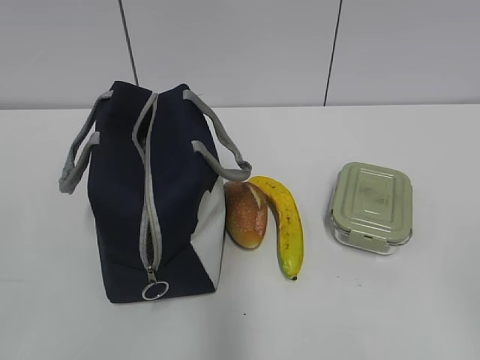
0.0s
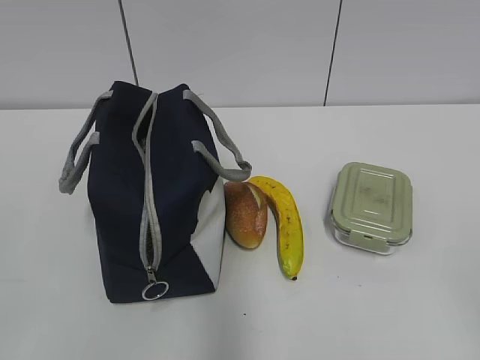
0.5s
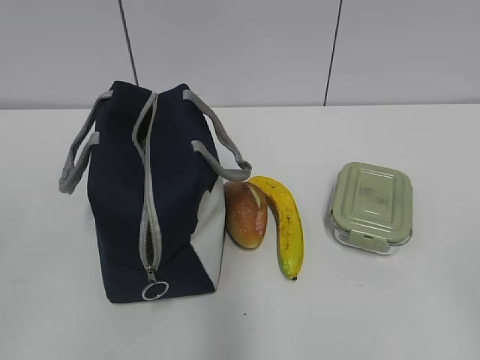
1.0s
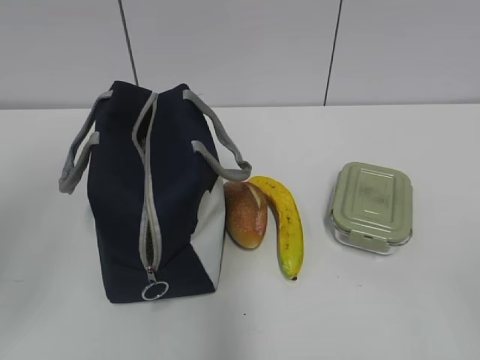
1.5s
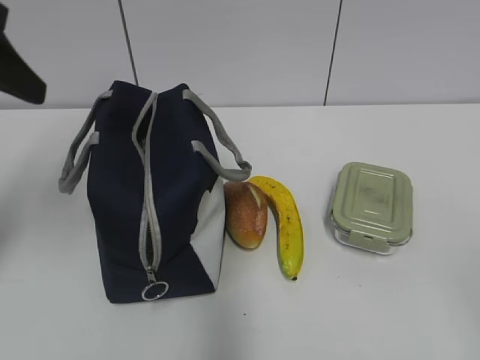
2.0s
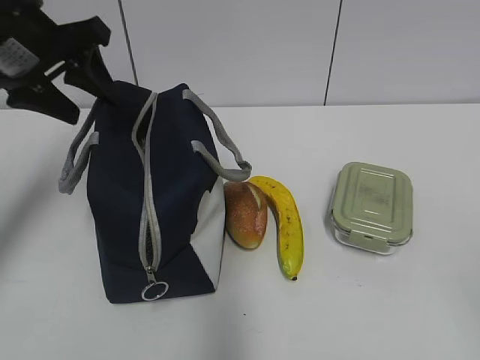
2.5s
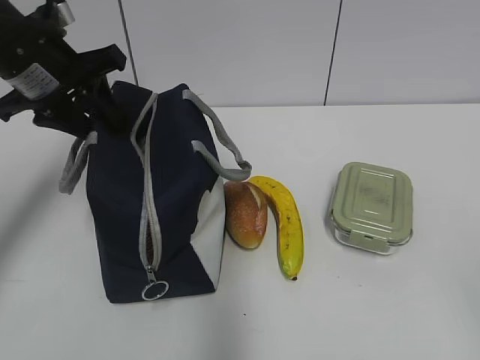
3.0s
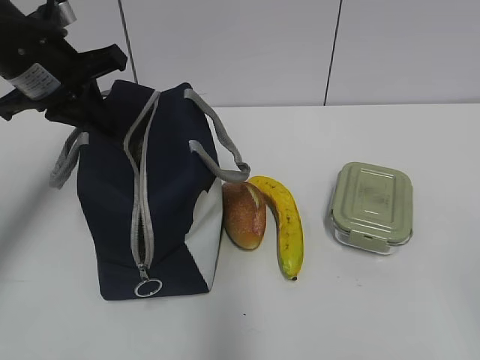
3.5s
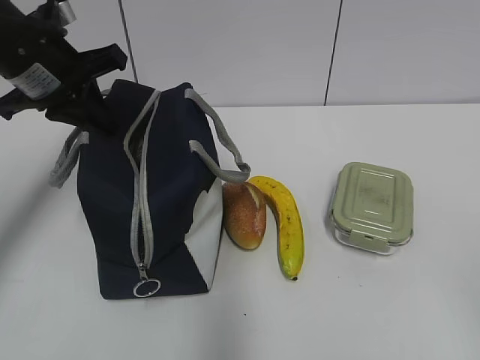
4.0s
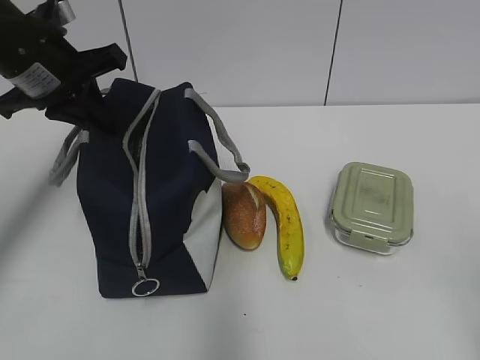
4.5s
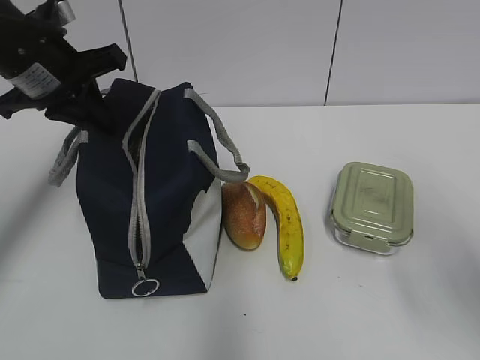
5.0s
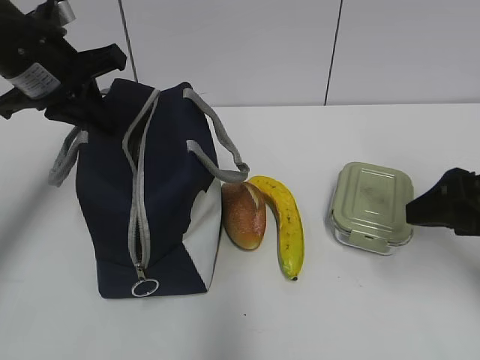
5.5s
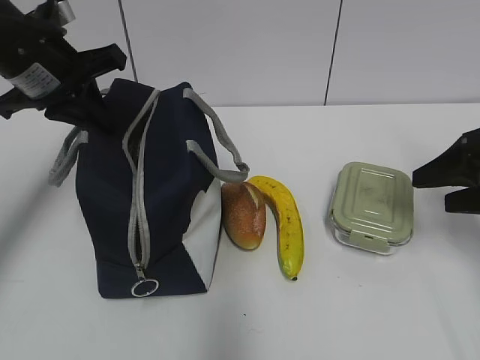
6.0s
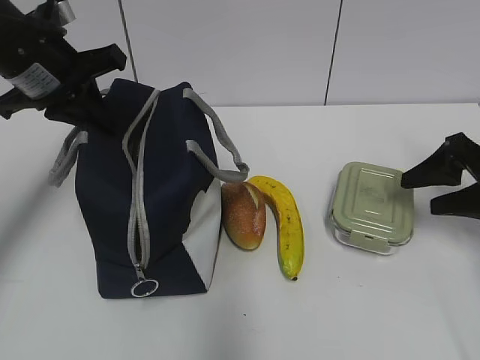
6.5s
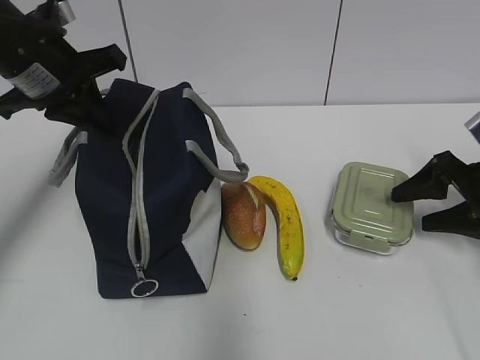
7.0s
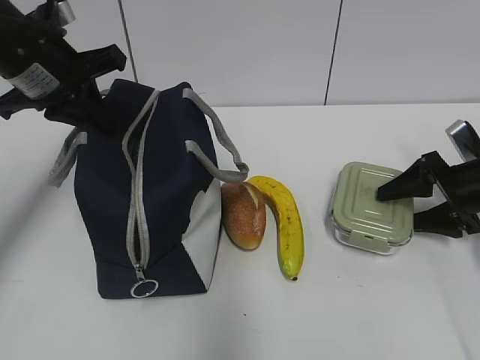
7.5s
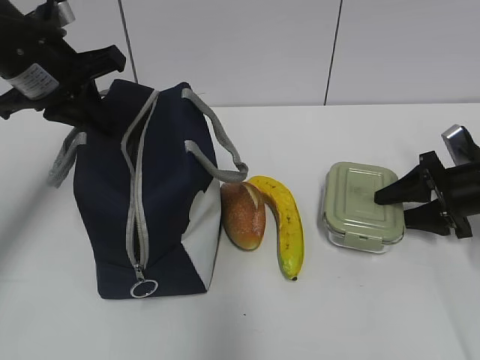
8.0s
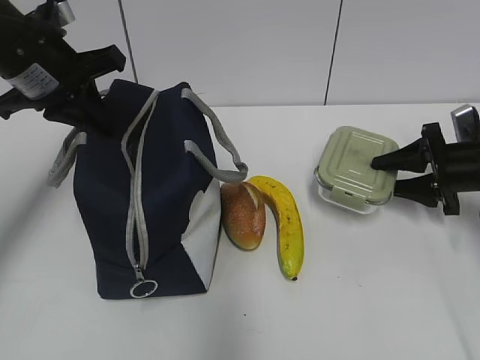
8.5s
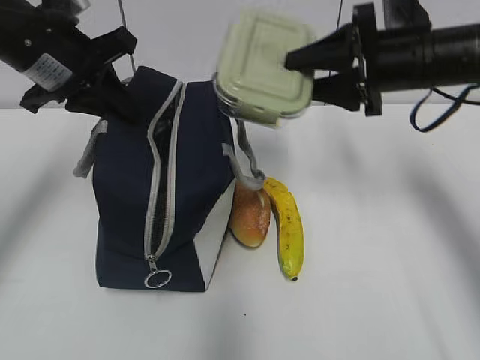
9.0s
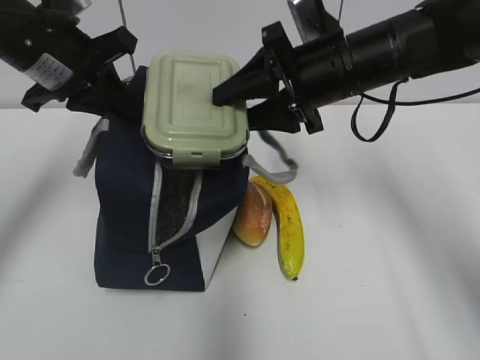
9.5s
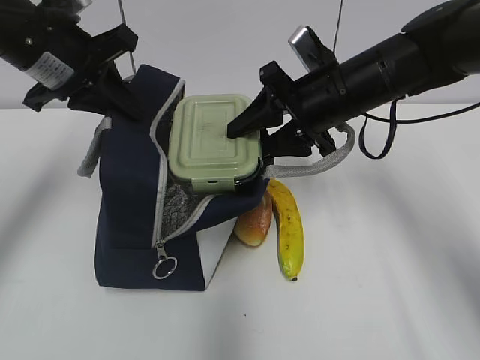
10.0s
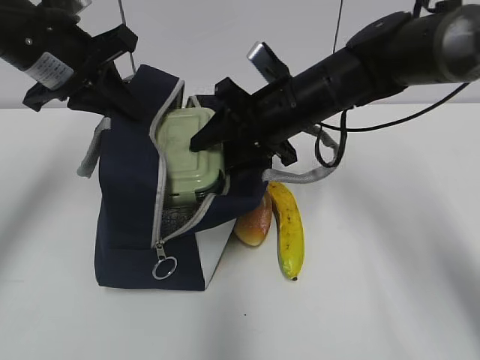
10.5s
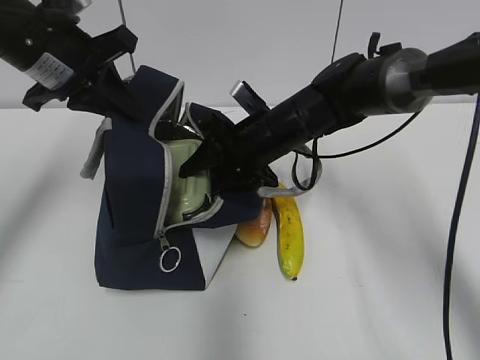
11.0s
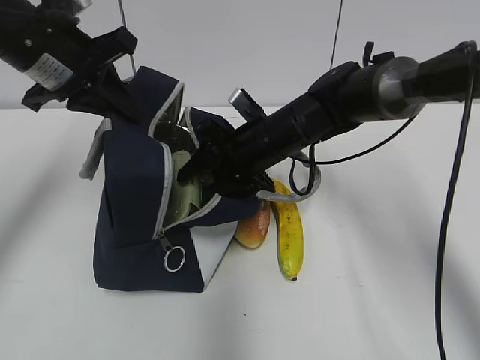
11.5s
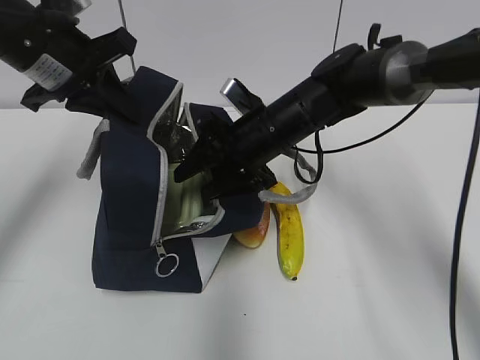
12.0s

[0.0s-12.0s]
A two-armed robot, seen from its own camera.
Step, 0.0s to 8.0s: Grab the lunch box with your right hand.
Step, 9.5s to 11.5s: Place it into the bag with your right hand.
2.0s to 4.0s: The left gripper shifts some 15 cm forward and downward, and closes up.
4.0s to 6.0s: The right gripper travels forward by about 30 cm.
6.0s to 8.0s: The right gripper travels downward and forward by some 10 cm.
8.0s to 10.0s: The right gripper moves to the left and upward, about 25 cm.
10.0s to 12.0s: The right gripper travels to the left and downward by roughly 10 cm.

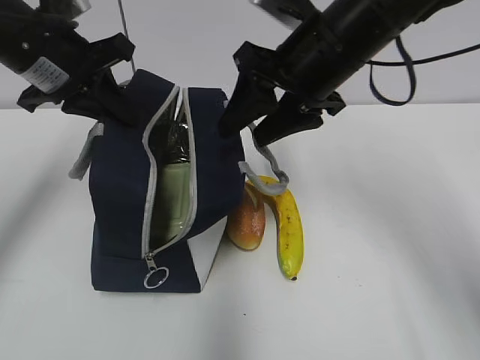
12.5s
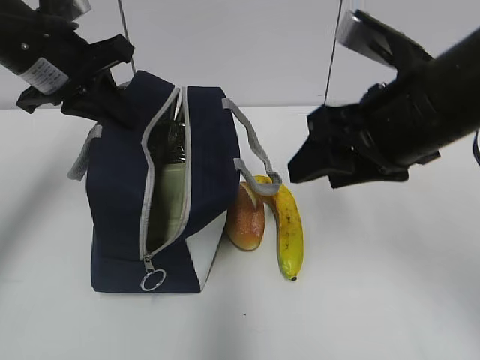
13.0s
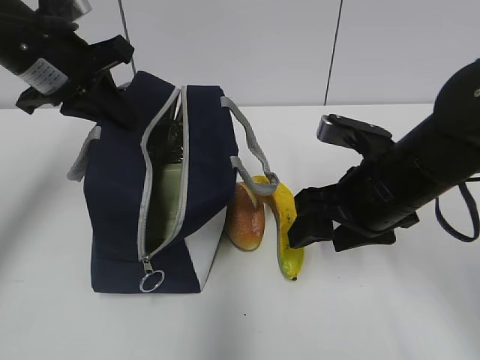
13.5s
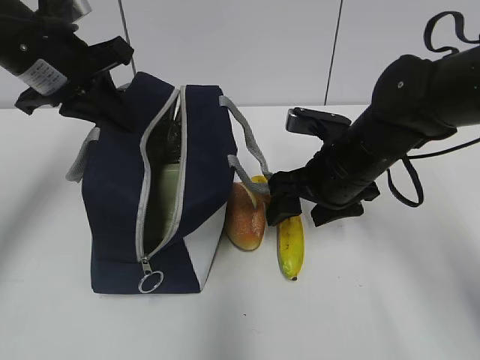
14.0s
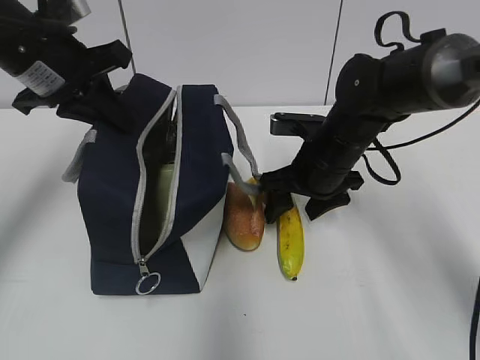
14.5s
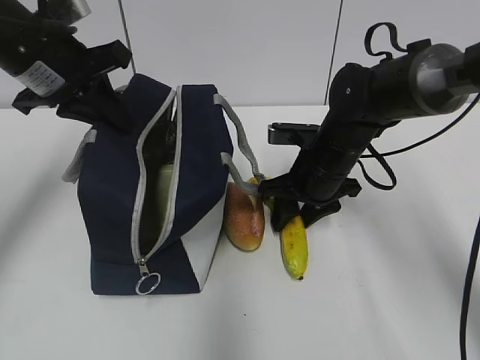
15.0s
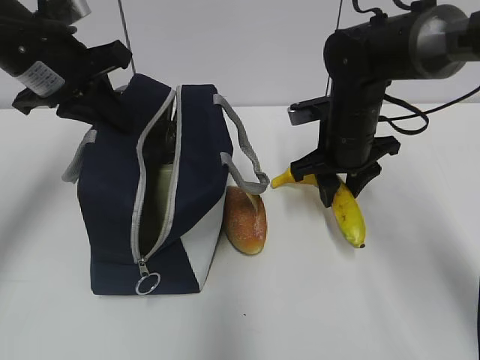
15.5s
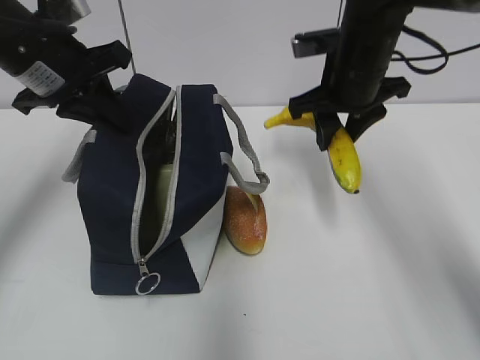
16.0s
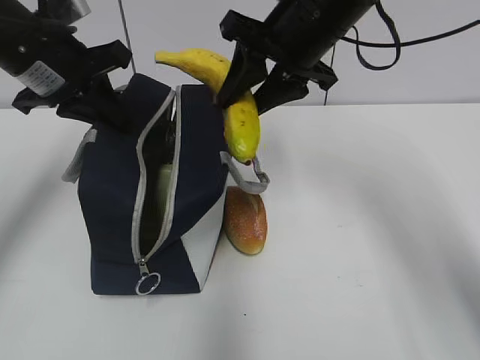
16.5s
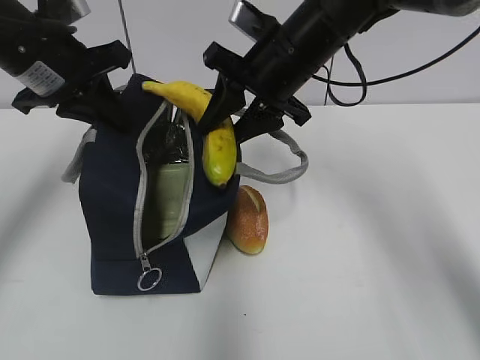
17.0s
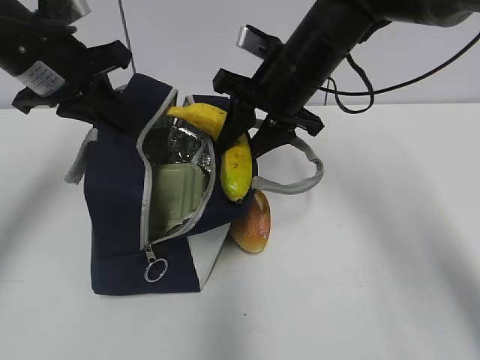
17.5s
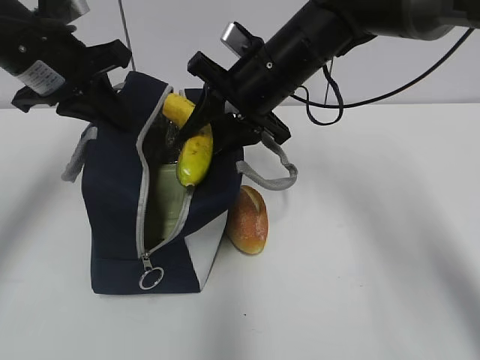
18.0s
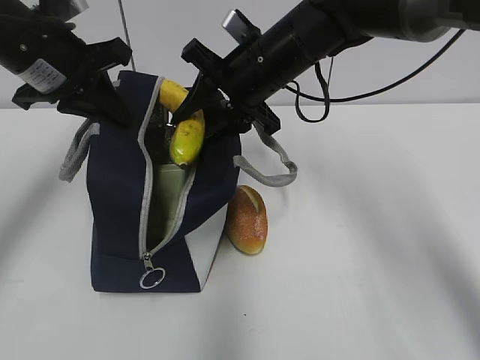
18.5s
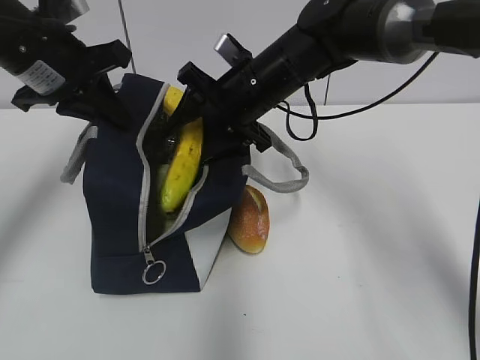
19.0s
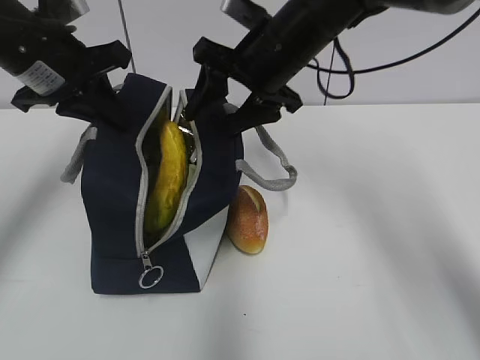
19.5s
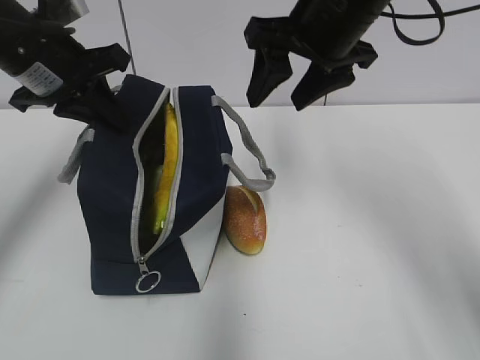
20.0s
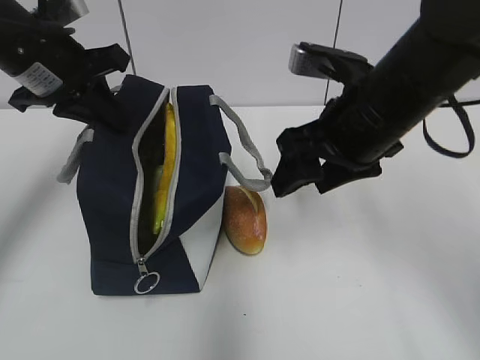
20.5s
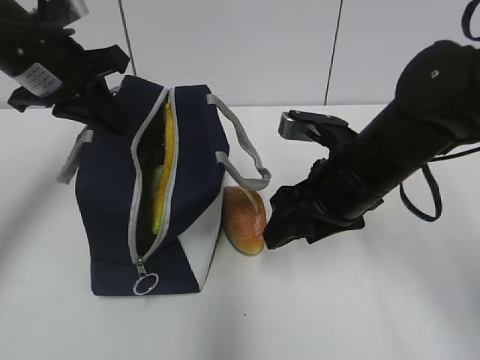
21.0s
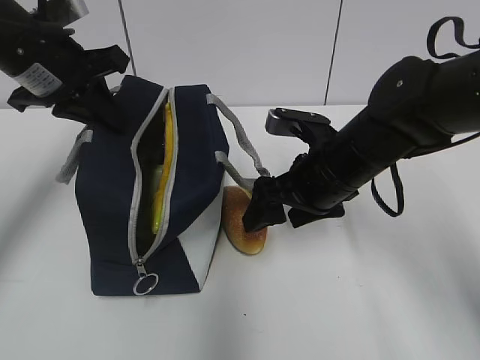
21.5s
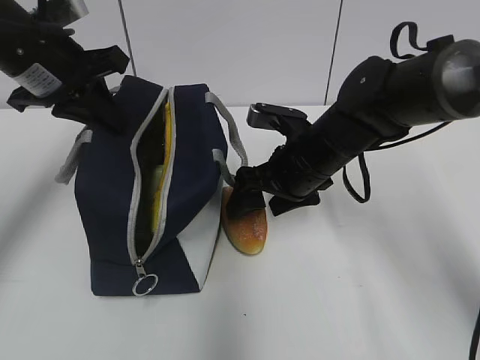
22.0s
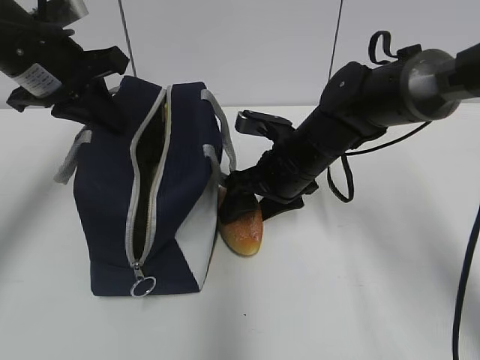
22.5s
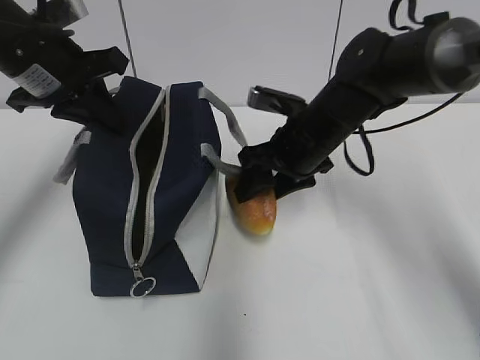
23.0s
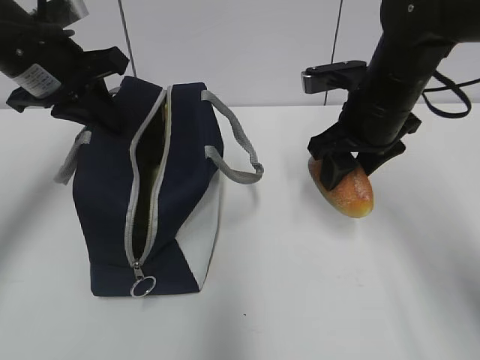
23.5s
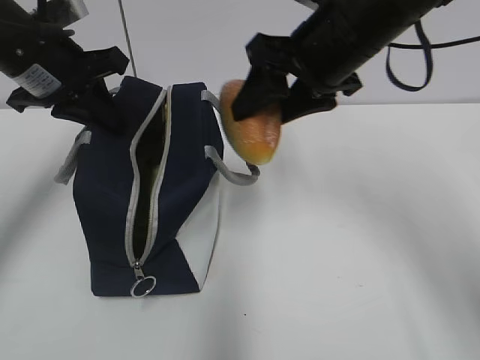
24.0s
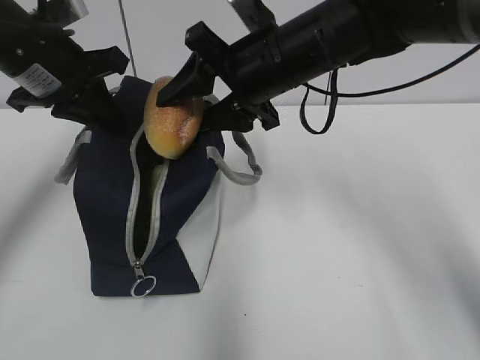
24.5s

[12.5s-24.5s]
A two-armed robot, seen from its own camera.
Step, 12.5s to 15.0s: Grab the banana with your right hand.
Step, 15.5s to 19.0s: Place it into the bag with your right hand.
Step, 19.5s to 22.5s: Grab the bread with your right hand.
12.5s to 14.5s: The right gripper moves downward, roughly 15 cm.
14.5s to 16.5s: The right gripper is displaced upward by some 15 cm, and closes its fingers.
16.5s to 18.5s: The right gripper shifts about 5 cm downward.
18.5s to 20.5s: The right gripper travels backward and to the right by approximately 15 cm.
20.5s to 22.5s: The right gripper travels downward and forward by some 15 cm.
22.5s to 24.5s: The right gripper shifts approximately 15 cm upward.

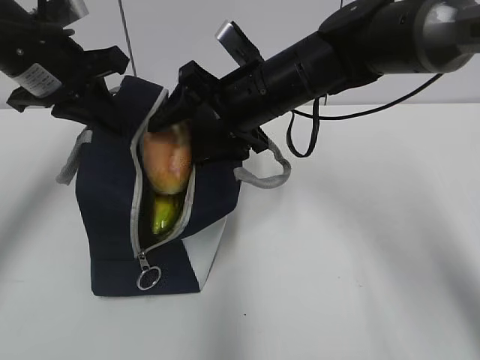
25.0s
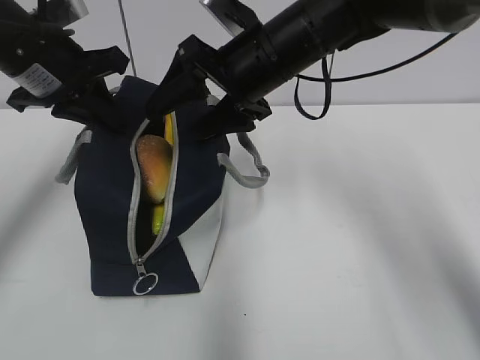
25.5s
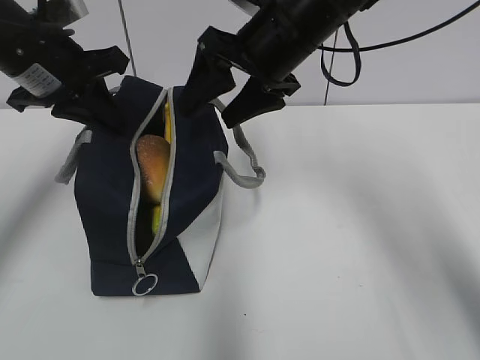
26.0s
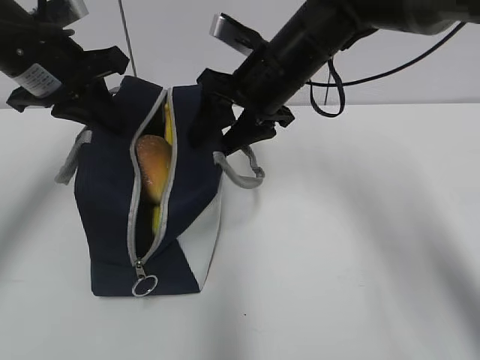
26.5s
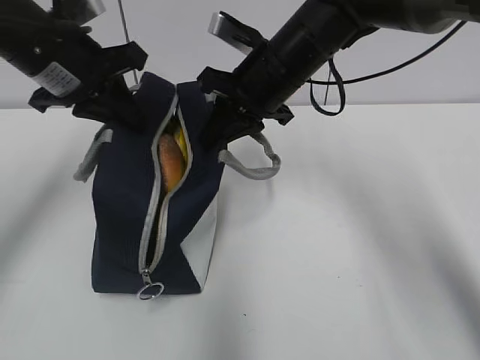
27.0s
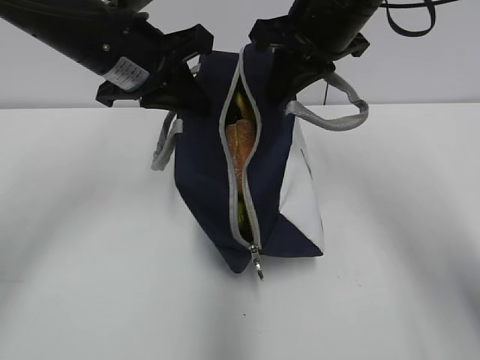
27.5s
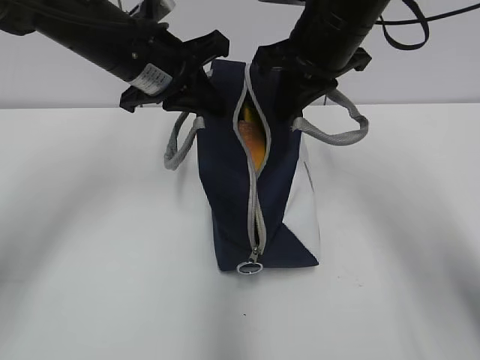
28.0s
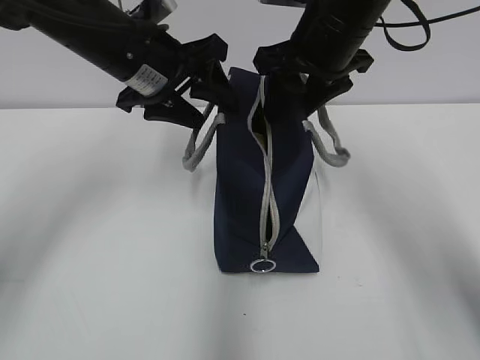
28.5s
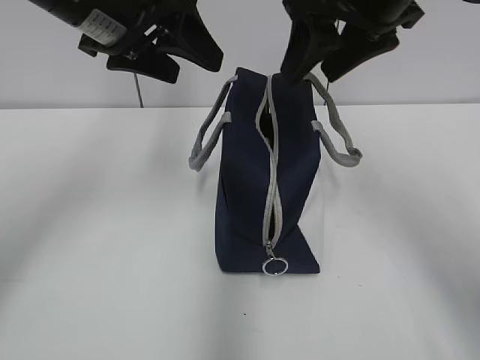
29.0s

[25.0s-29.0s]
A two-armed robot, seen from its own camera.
Step, 25.5s to 27.0s: Grab the lunch bag with your right hand.
Step, 27.5s to 28.5s: Move the lunch bag to the right.
25.0s to 27.0s: The right gripper closes up.
27.0s to 29.0s: The right gripper is displaced upward, backward and to the right by roughly 15 cm, and opens up. The left gripper moves to the right and upward, roughly 10 cm, and opens up.
